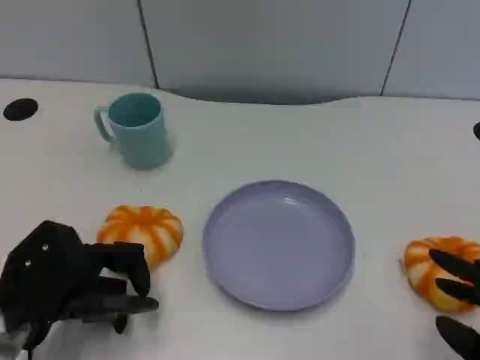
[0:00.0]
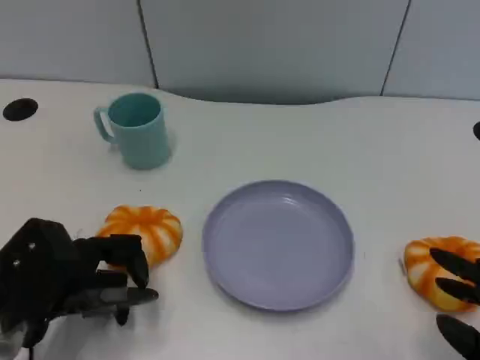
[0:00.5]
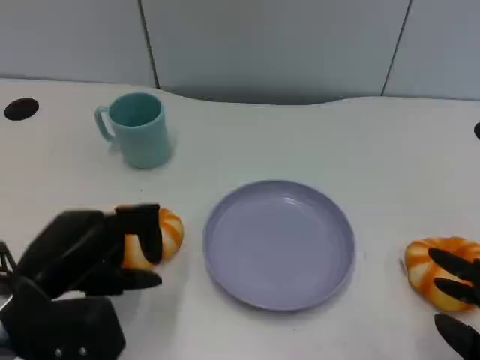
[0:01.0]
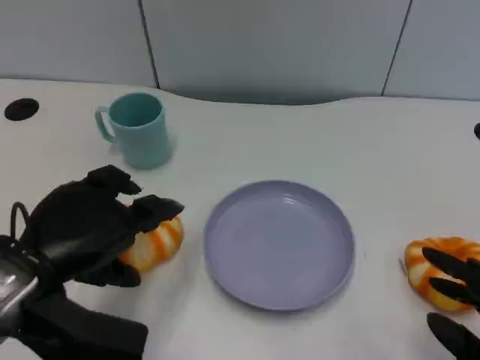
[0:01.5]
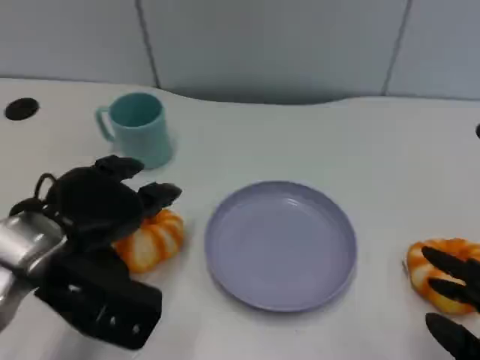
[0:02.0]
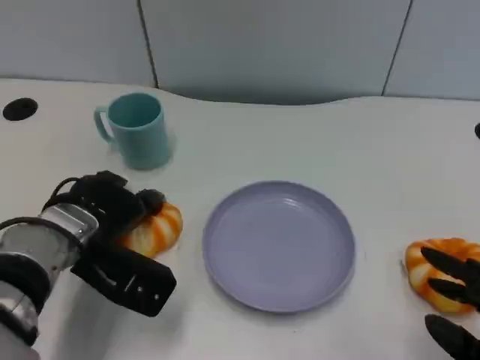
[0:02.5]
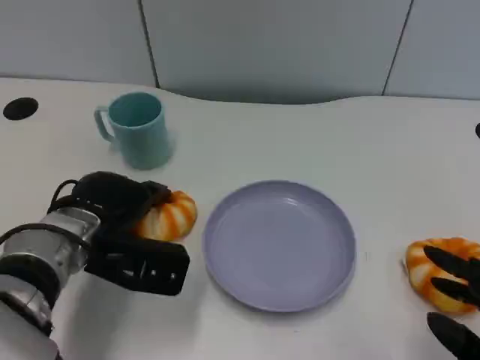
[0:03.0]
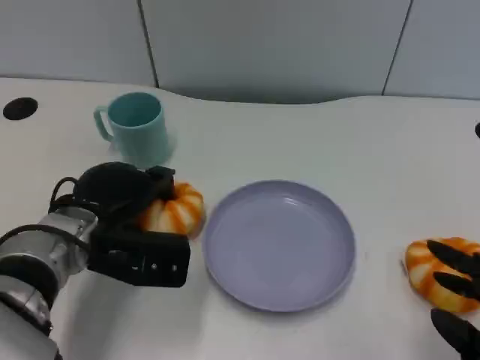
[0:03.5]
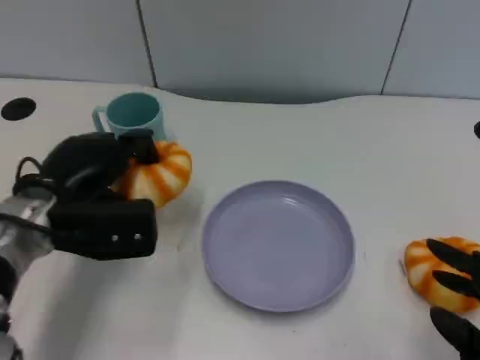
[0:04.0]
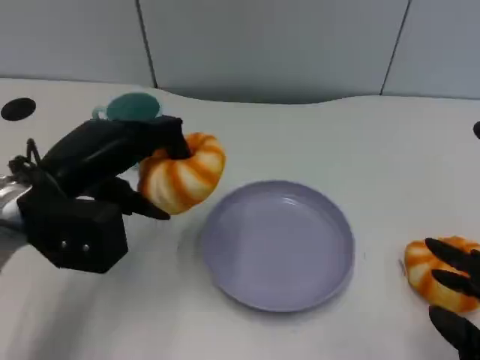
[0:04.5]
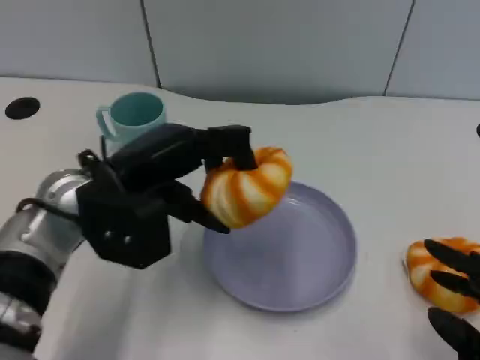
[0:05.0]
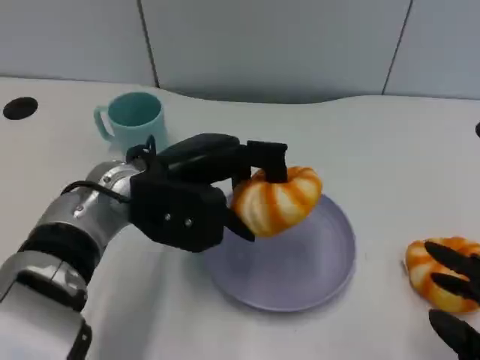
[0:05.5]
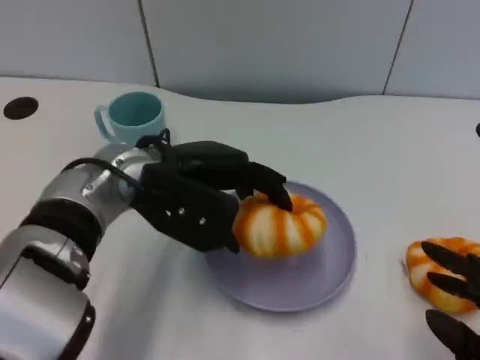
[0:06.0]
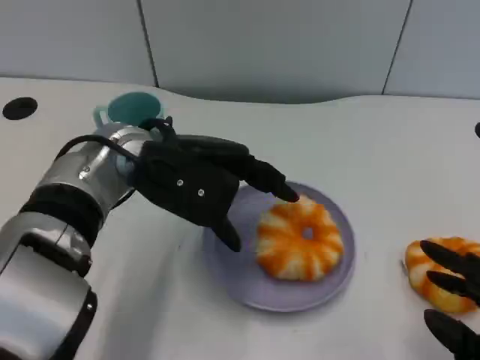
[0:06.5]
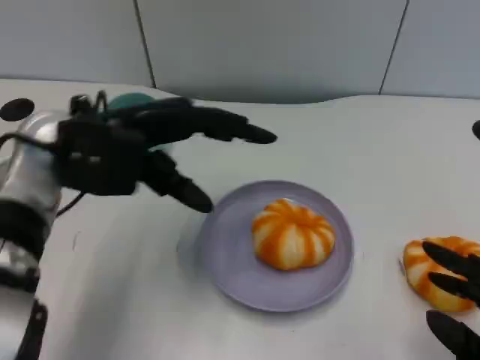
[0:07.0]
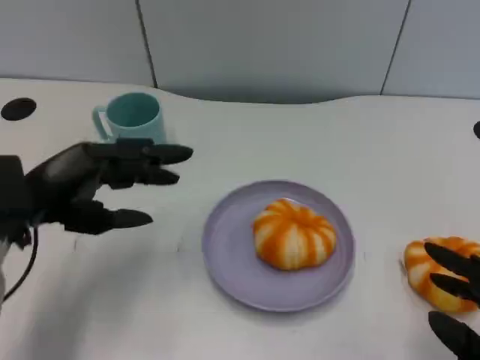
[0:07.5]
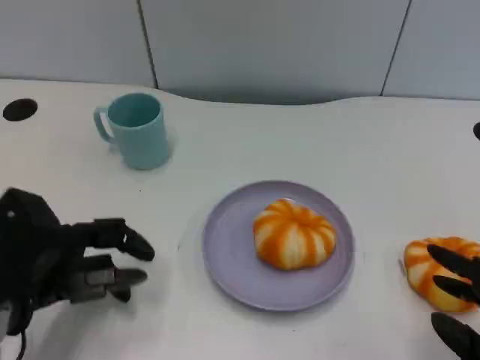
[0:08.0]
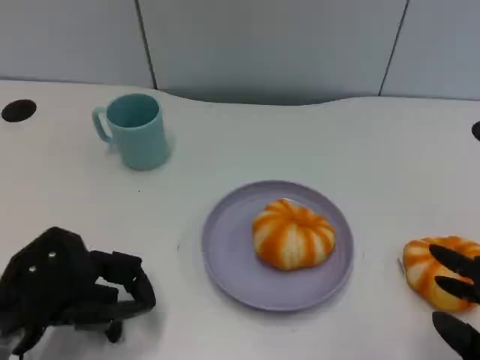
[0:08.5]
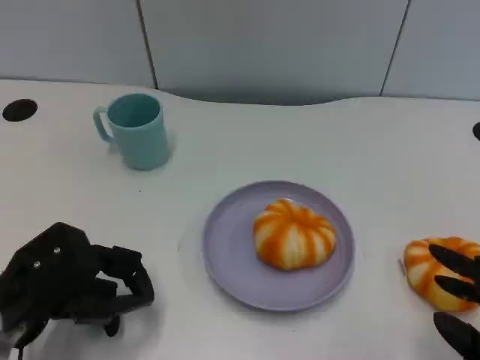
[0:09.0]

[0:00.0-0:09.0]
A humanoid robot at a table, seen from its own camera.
Task of the whole recording: Grasp the bread from the table and place it into the plate.
0.0 to 2.0 s: The left hand shifts some 5 cm upward.
4.5 to 7.0 s: The left hand reaches roughly 10 cm to the right, then returns.
7.0 to 9.0 s: The left hand is displaced downward, backward and to the left by roughly 15 cm.

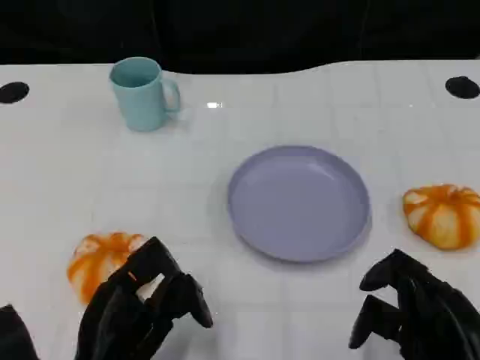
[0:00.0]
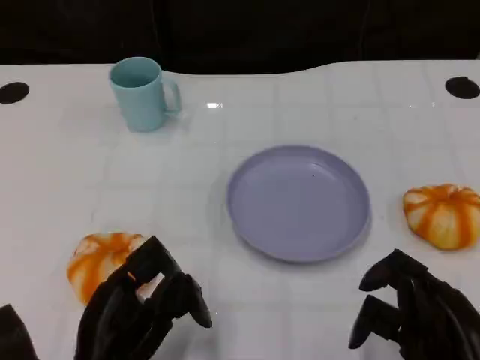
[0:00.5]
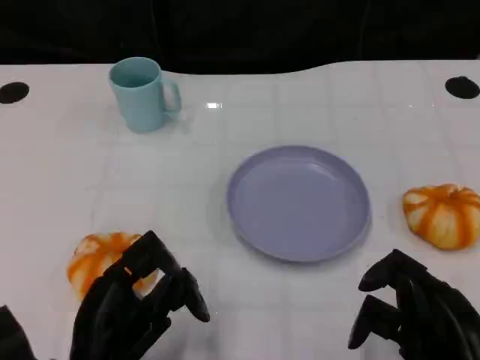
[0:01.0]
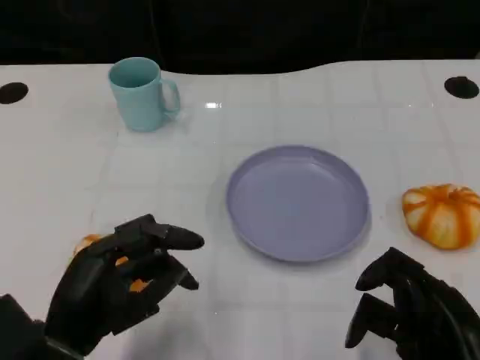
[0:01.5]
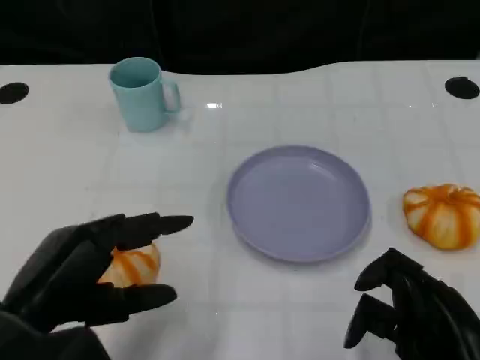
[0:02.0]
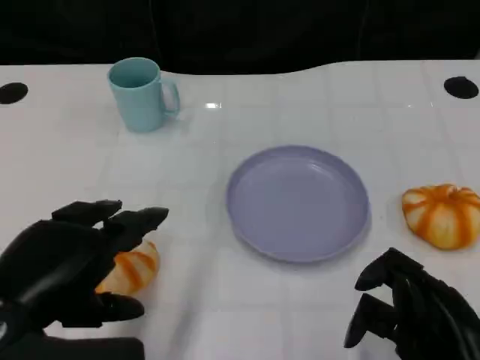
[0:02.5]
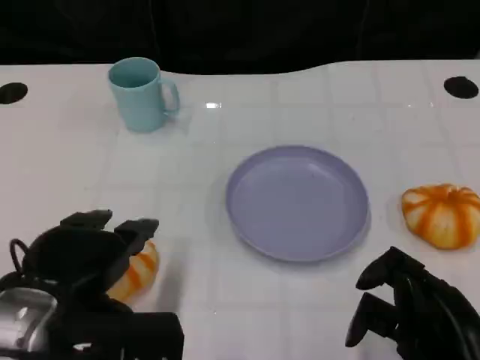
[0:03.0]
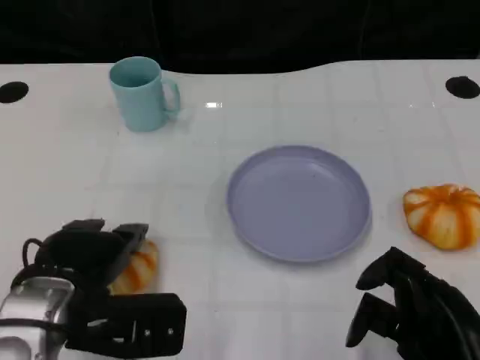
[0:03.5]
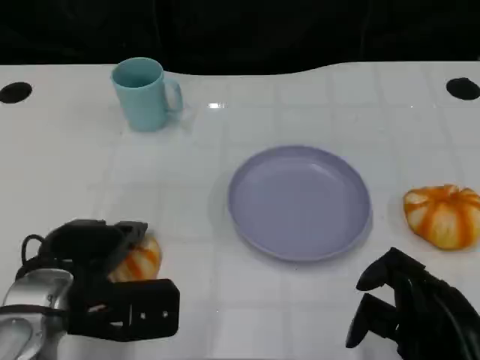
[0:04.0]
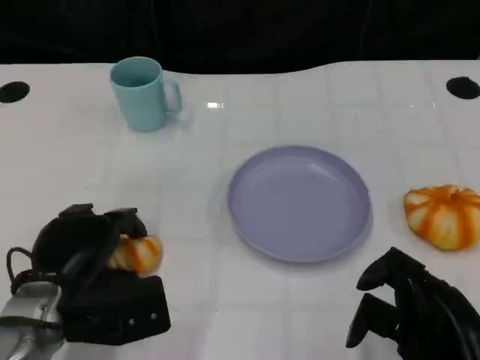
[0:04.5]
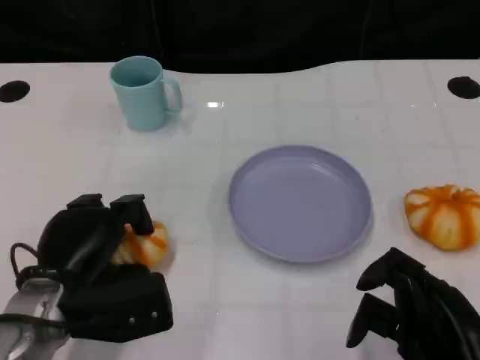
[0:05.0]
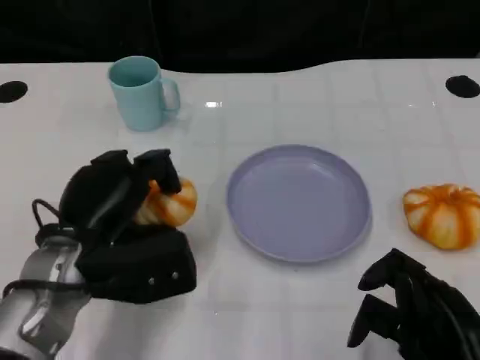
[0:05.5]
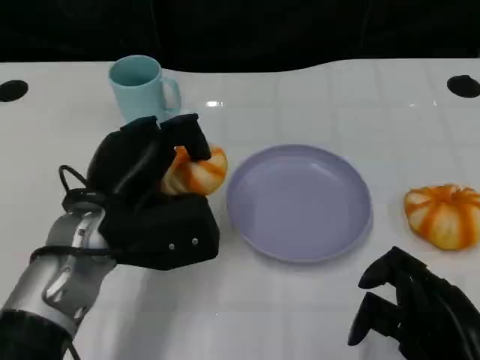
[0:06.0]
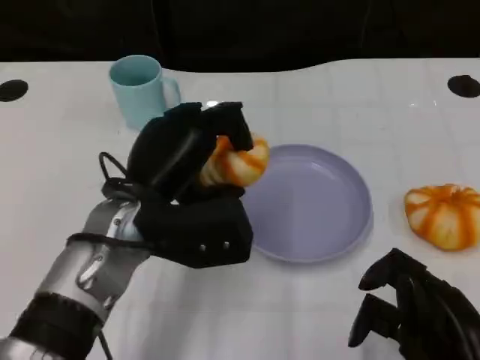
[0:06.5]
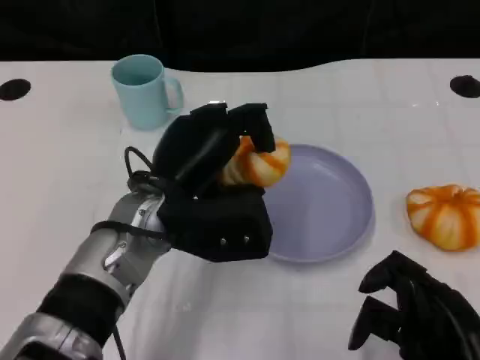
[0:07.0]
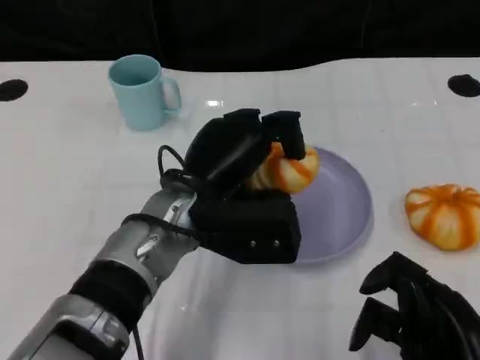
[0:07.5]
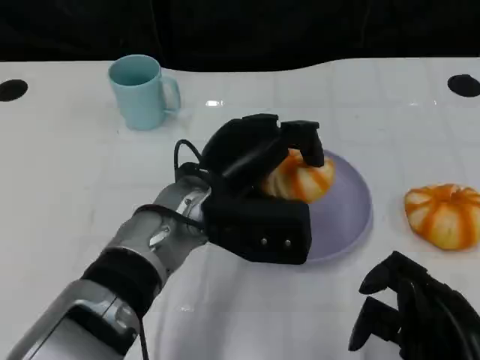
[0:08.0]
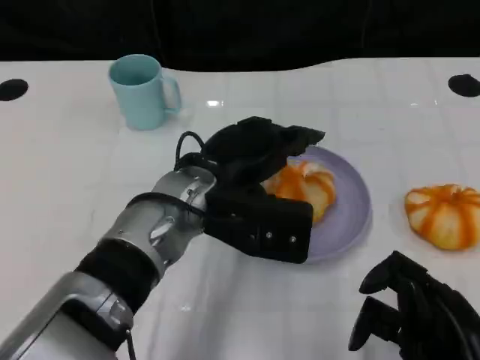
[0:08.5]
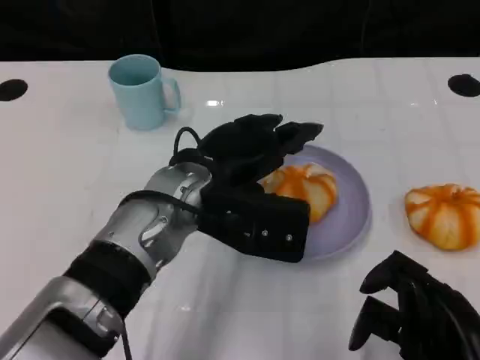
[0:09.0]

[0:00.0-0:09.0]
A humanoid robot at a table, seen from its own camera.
Task of the whole recording: Grasp the bread from the table and place it into the plate.
0.0 to 2.0 s: The left hand moves upward, approximately 10 cm.
2.0 to 4.5 s: The left hand goes approximately 10 cm downward and forward.
4.5 to 7.0 s: The left hand shifts some 15 cm to the right, upward and forward.

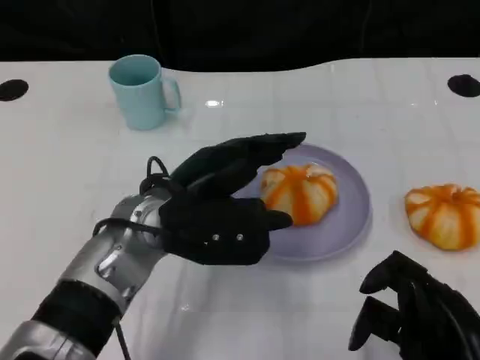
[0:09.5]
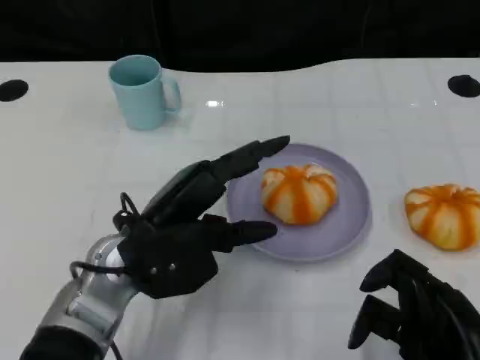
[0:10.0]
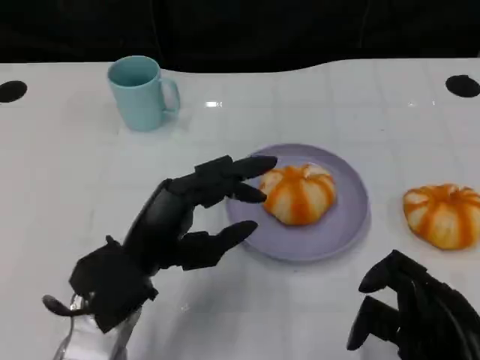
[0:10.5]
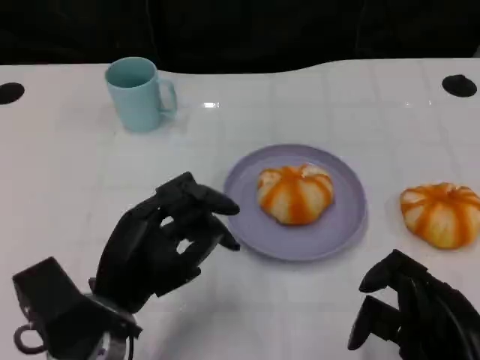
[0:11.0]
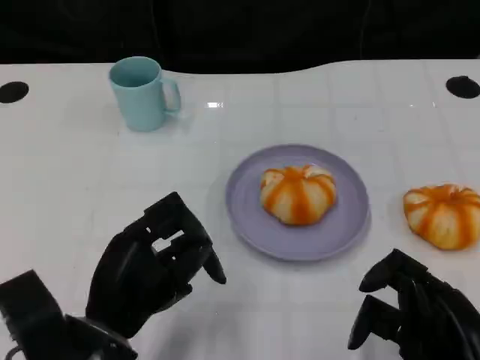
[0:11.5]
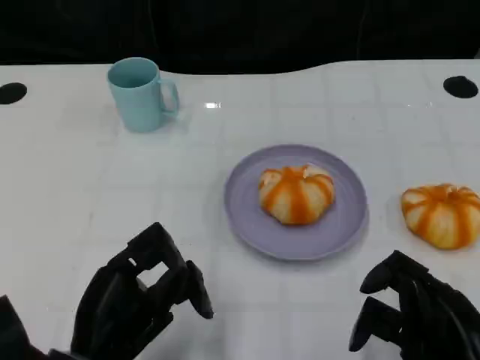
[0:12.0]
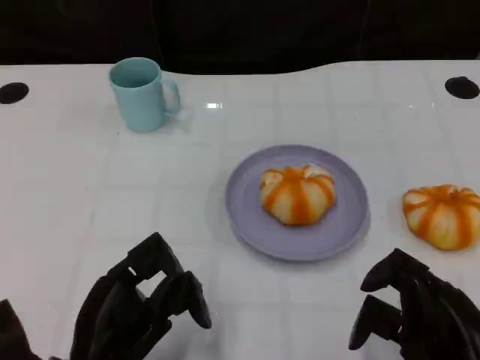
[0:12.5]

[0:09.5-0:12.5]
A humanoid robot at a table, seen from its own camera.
Task of the whole recording: Grasp the bread from the table and place it into the plate.
9.5 to 11.0 s: The left hand moves backward, to the left and downward, roughly 10 cm.
11.0 to 12.5 s: The left hand changes place by about 5 cm.

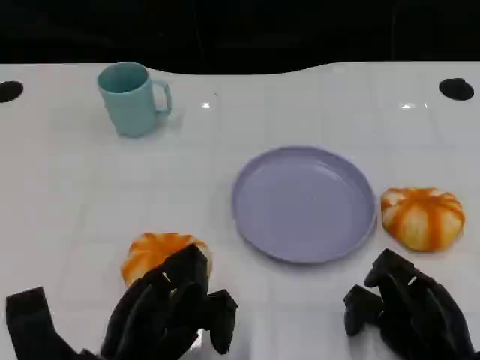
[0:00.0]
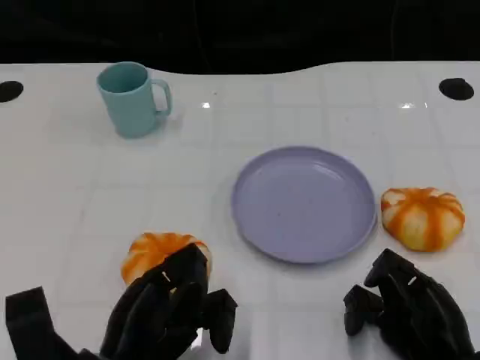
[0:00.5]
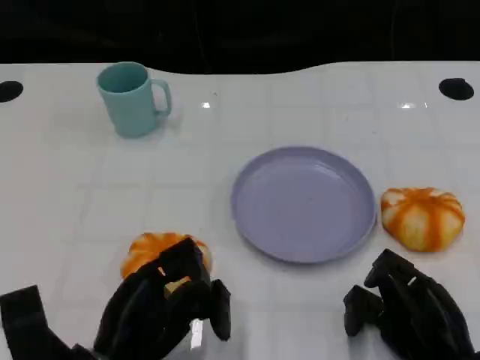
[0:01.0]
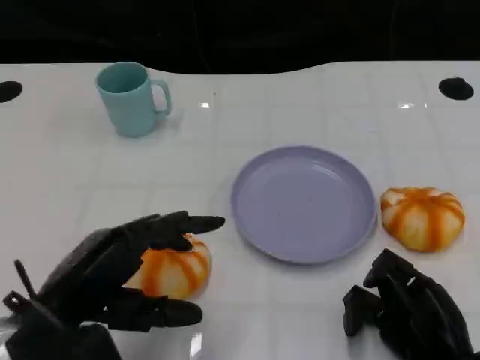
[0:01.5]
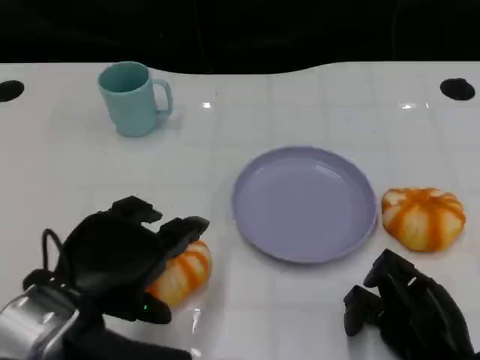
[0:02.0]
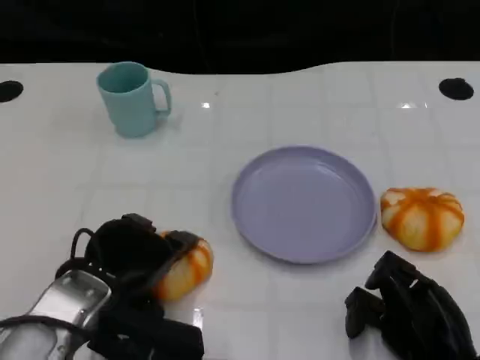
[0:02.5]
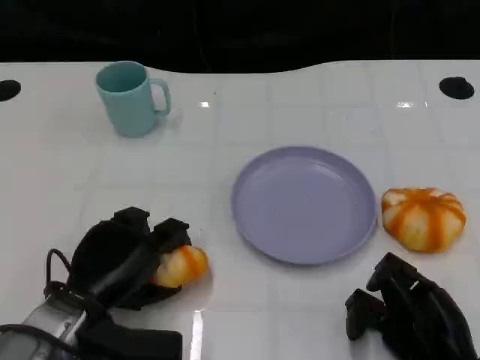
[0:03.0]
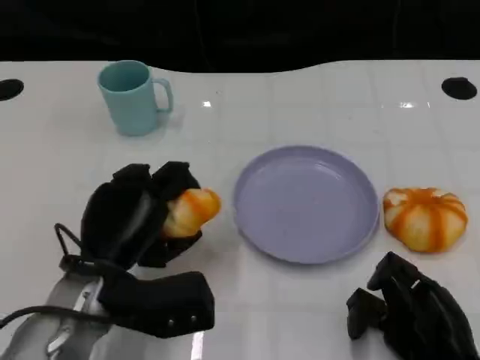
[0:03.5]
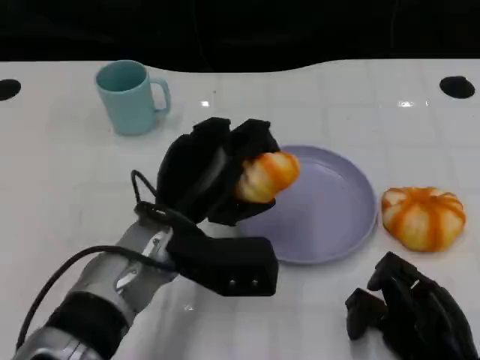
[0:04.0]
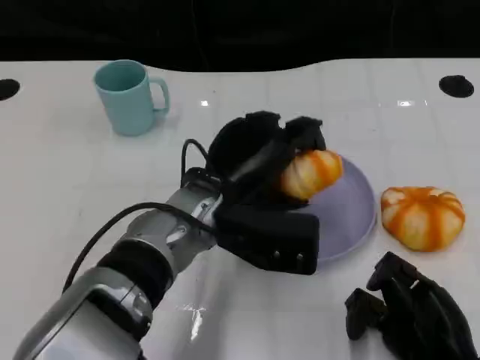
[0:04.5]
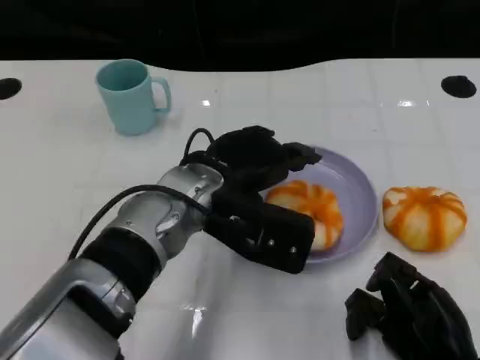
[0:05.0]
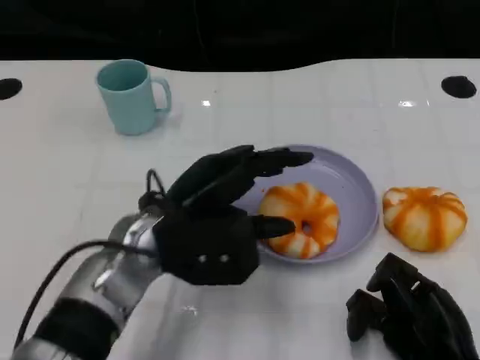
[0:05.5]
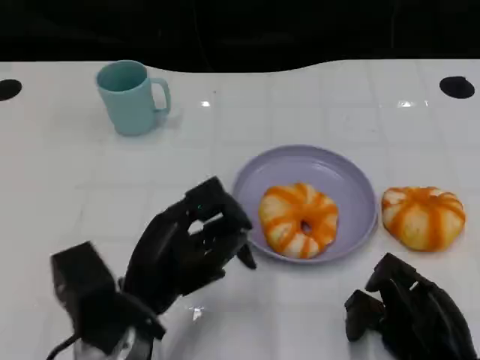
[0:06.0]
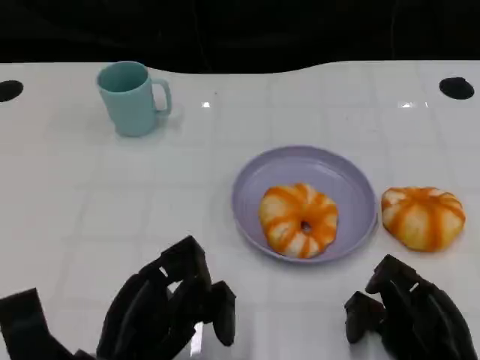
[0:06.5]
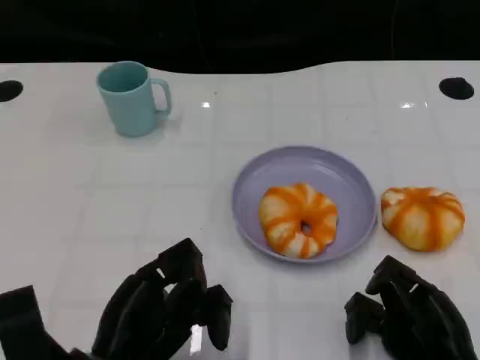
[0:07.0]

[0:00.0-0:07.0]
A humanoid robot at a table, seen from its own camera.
Task of the whole recording: Grasp the bread from the table and place it into the plate.
0.0 to 2.0 s: The left hand shifts some 10 cm upward.
2.0 to 3.5 s: The left hand changes place by roughly 5 cm.
3.5 to 5.0 s: The left hand travels to the right, upward and forward by about 15 cm.
5.0 to 7.0 s: The left hand goes approximately 20 cm backward, to the left and downward.
